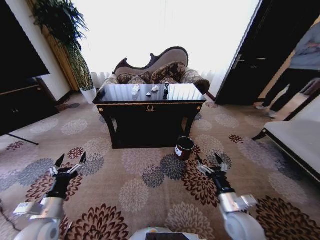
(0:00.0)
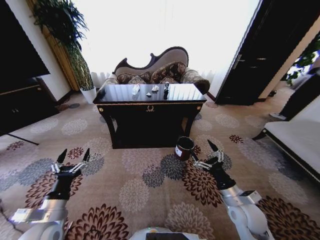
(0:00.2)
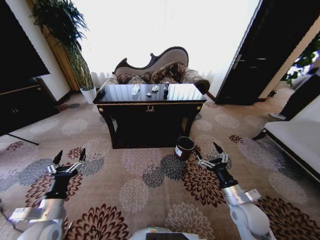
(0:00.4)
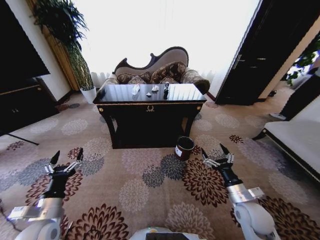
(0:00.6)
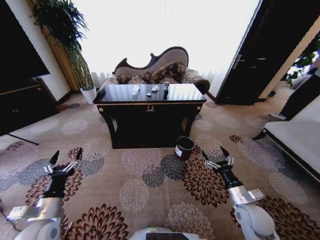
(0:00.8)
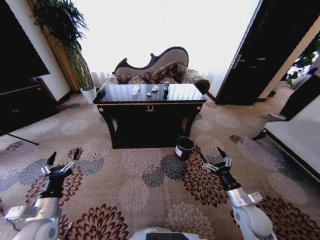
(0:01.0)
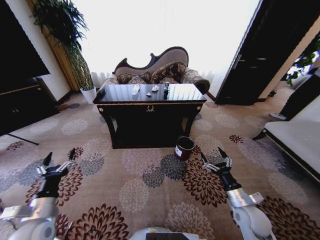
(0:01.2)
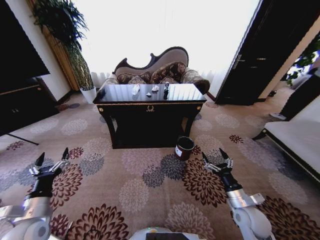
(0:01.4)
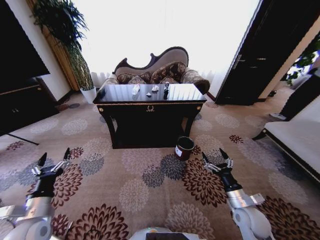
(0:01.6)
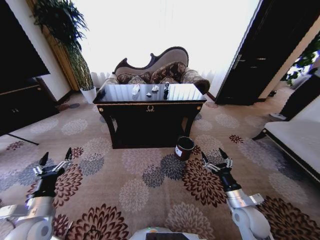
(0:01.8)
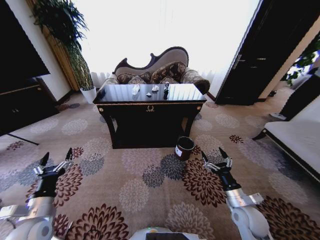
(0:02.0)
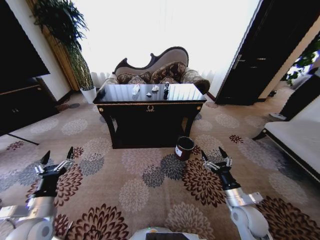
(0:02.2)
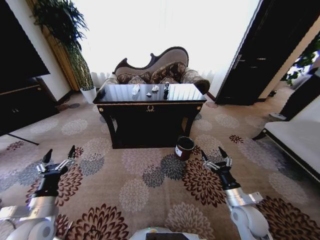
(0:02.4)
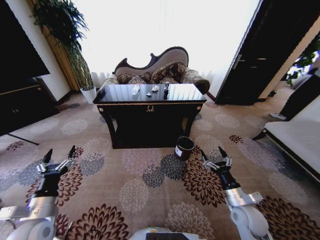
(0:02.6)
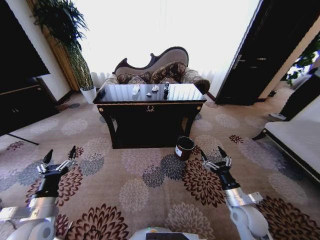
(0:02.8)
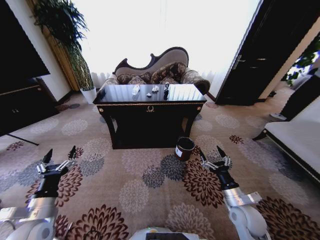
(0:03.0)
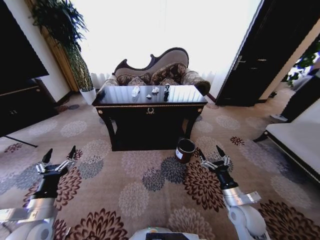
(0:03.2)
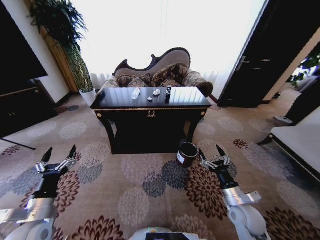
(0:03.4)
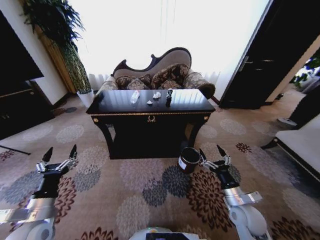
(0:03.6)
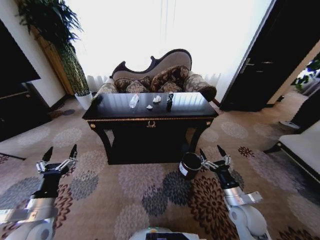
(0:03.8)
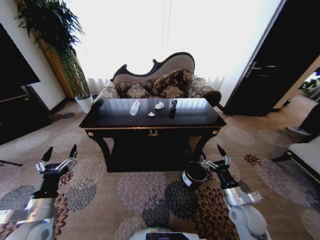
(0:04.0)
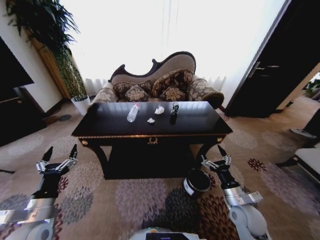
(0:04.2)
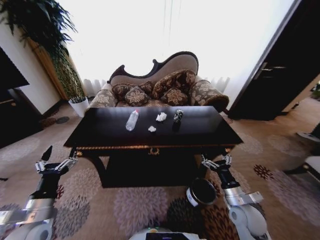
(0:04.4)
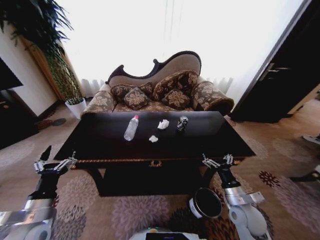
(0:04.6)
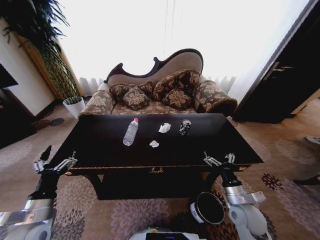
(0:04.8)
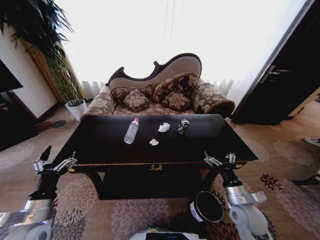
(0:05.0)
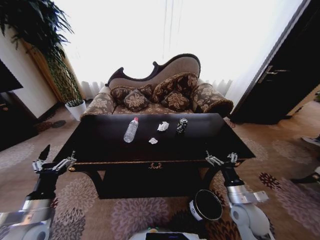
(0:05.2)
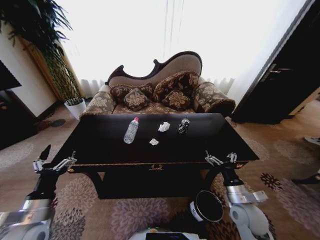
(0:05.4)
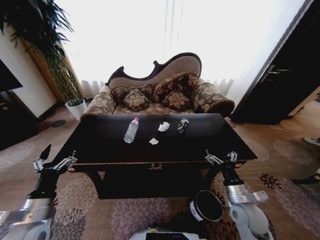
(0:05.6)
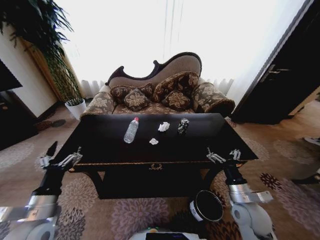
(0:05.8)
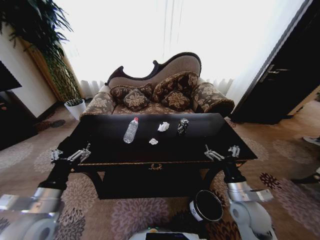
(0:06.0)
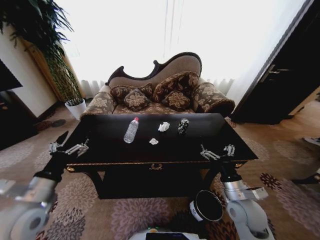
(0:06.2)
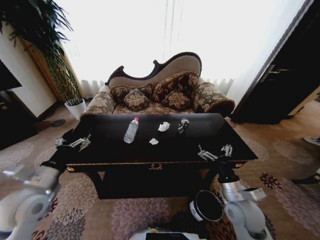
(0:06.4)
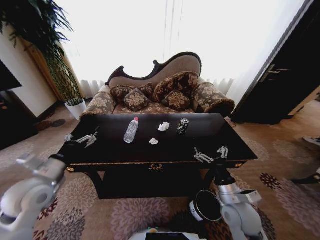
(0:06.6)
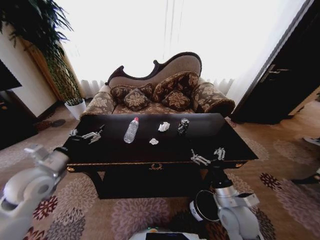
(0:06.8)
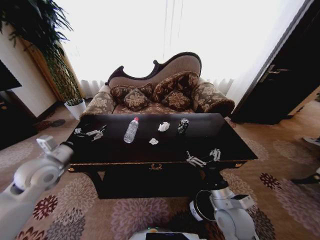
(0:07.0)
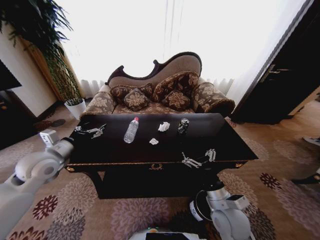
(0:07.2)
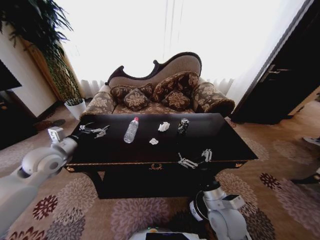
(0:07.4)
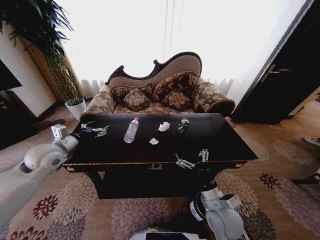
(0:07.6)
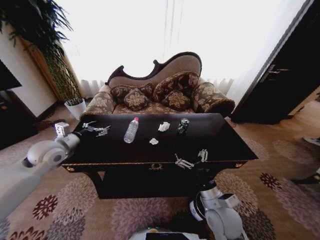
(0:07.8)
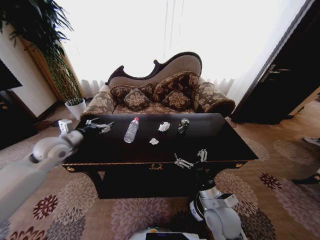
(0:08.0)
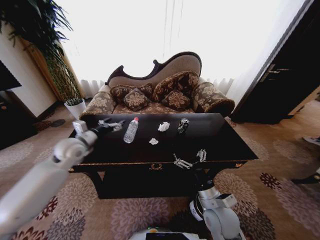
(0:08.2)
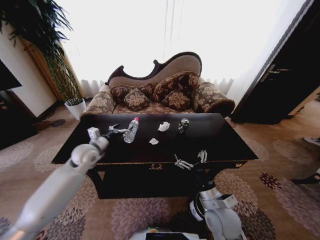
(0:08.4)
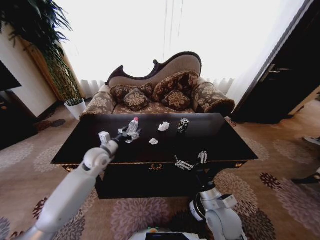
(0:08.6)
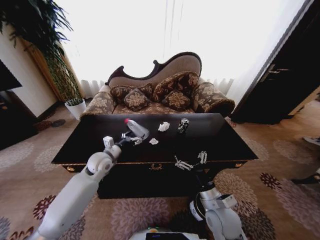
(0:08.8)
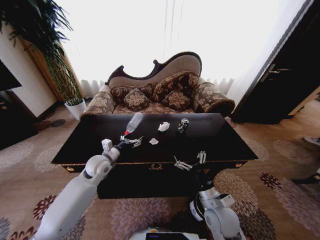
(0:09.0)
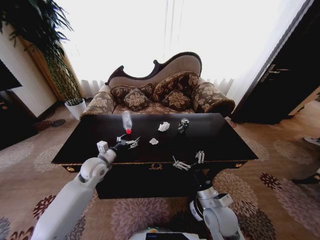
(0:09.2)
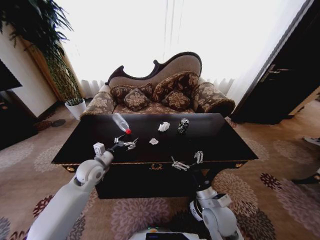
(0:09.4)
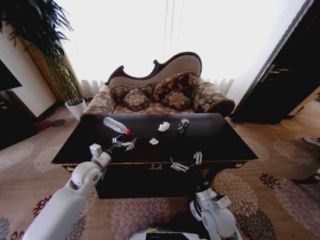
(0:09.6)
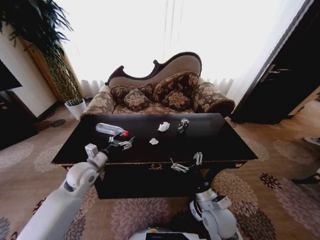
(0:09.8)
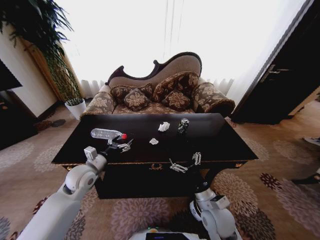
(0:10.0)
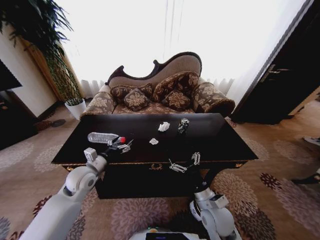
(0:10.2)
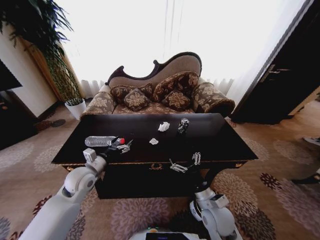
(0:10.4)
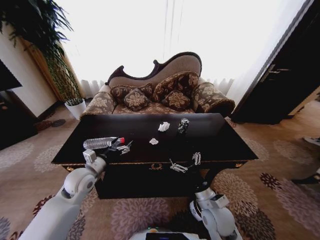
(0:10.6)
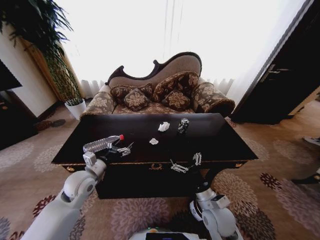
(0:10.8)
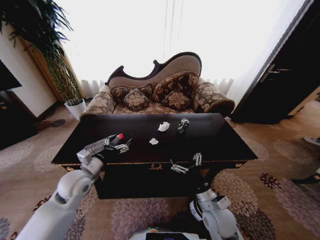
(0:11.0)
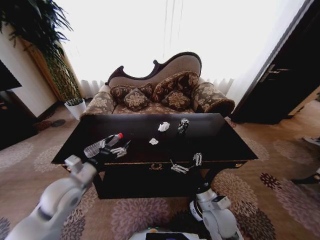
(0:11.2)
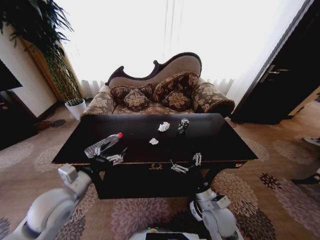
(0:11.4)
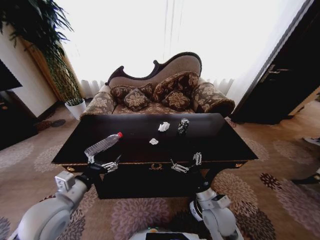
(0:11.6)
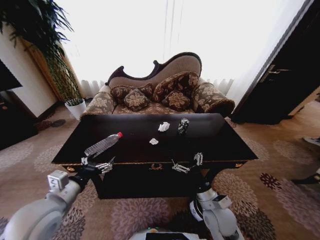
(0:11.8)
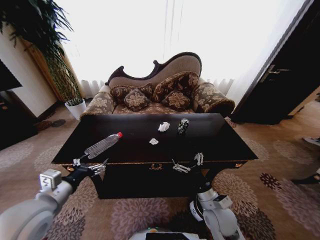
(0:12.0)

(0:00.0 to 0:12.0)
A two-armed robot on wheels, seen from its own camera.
Task of the whole recording: Move to the front of the table and place the trash on the table into the trash bin.
0:01.6 - 0:03.0: The grippers make only small movements.
0:04.4 - 0:06.0: The two grippers go approximately 5 cm upward.
0:06.0 - 0:07.6: The left gripper is displaced forward by roughly 20 cm. Meanwhile the right gripper moves to the left, roughly 10 cm.
0:07.6 - 0:09.0: The left gripper shifts some 15 cm to the right and downward.
0:09.0 - 0:10.4: The left gripper moves backward, approximately 5 cm.
0:10.4 - 0:12.0: The left gripper moves backward and upward, about 15 cm.

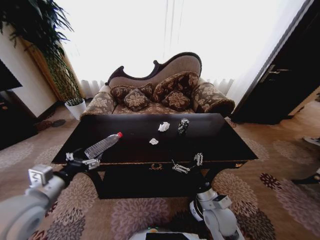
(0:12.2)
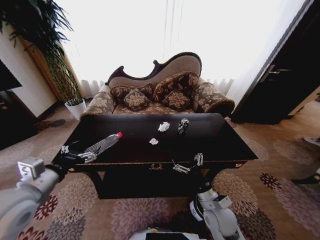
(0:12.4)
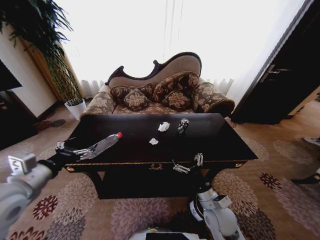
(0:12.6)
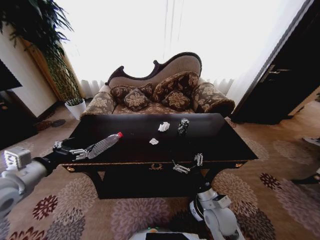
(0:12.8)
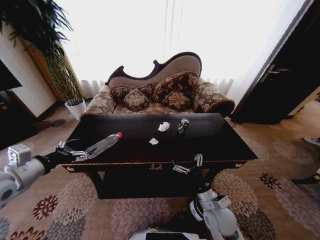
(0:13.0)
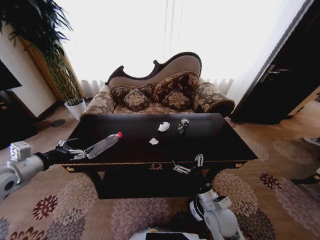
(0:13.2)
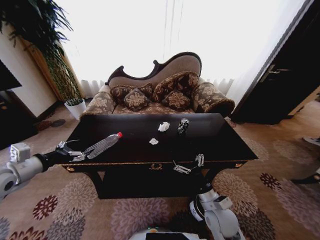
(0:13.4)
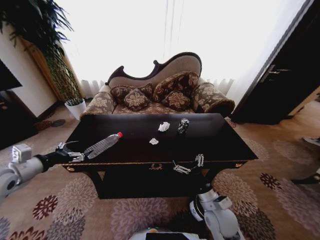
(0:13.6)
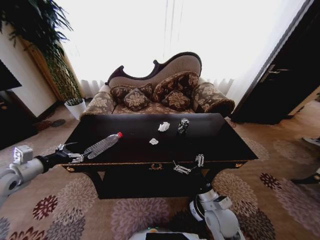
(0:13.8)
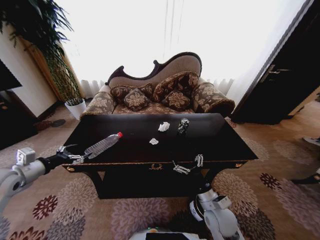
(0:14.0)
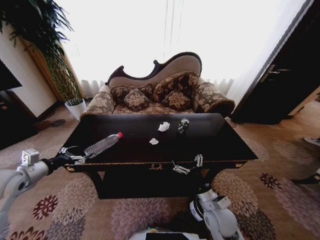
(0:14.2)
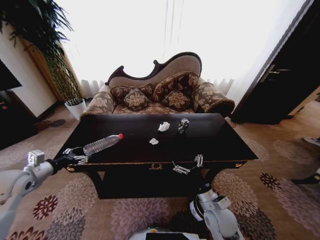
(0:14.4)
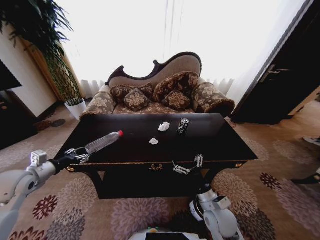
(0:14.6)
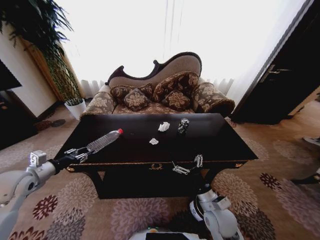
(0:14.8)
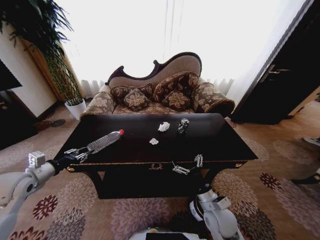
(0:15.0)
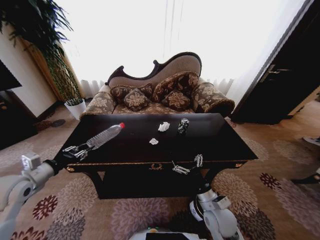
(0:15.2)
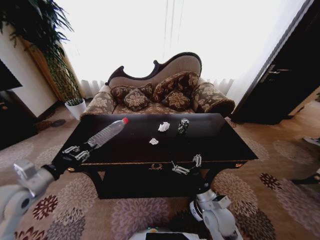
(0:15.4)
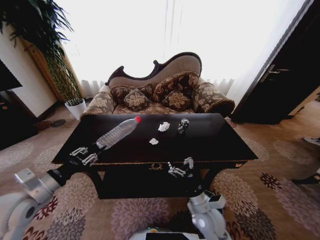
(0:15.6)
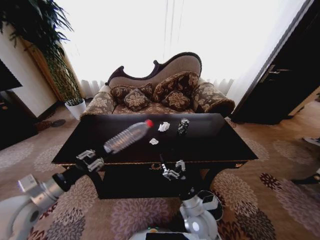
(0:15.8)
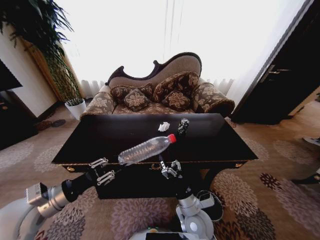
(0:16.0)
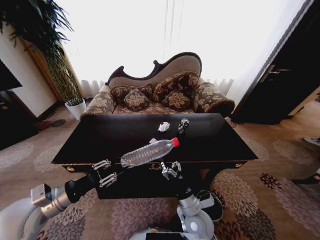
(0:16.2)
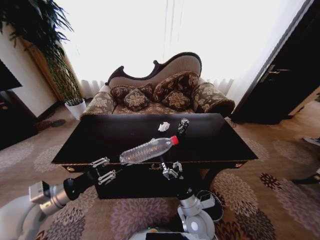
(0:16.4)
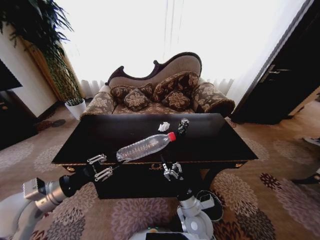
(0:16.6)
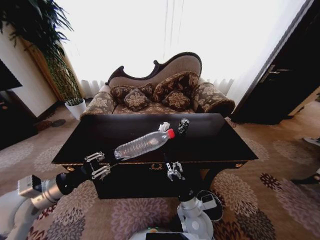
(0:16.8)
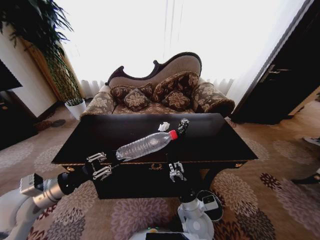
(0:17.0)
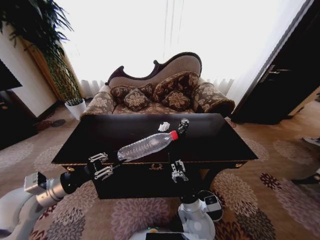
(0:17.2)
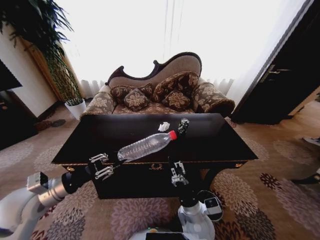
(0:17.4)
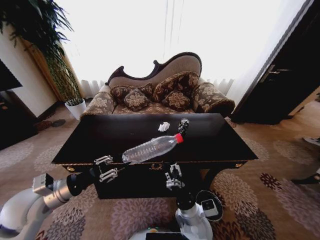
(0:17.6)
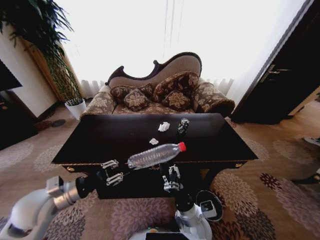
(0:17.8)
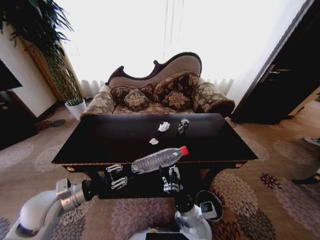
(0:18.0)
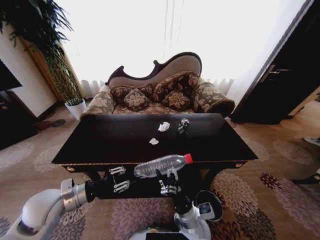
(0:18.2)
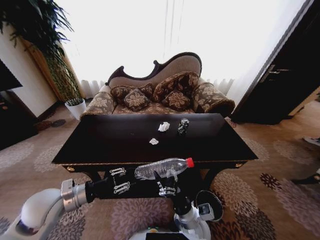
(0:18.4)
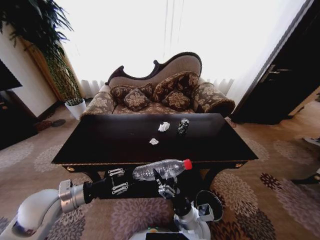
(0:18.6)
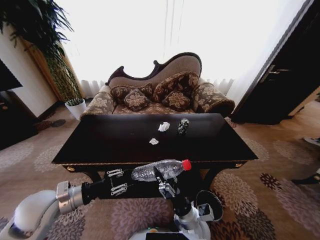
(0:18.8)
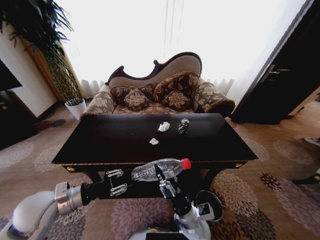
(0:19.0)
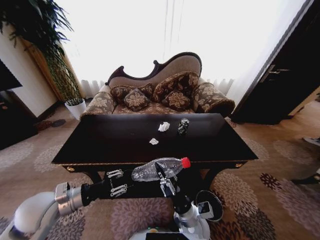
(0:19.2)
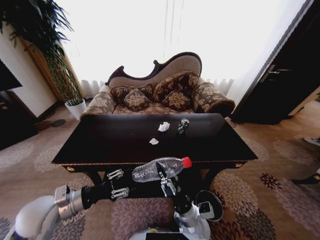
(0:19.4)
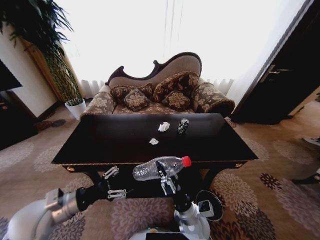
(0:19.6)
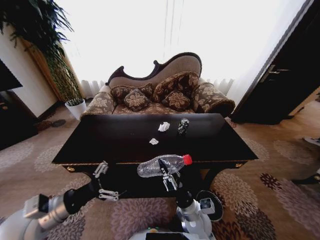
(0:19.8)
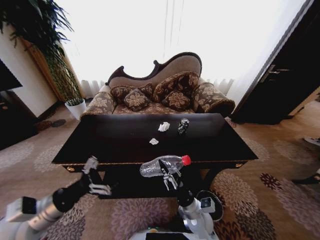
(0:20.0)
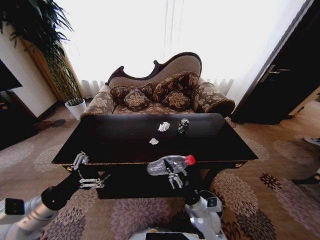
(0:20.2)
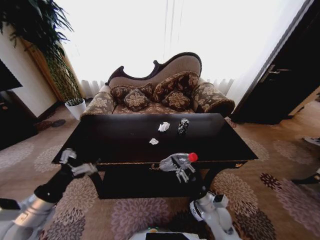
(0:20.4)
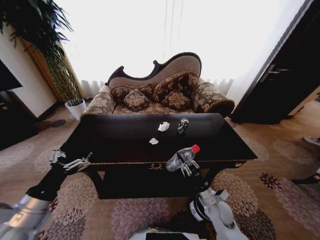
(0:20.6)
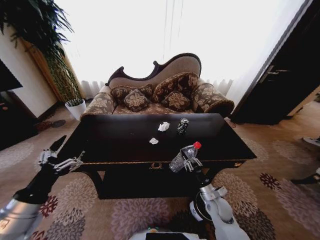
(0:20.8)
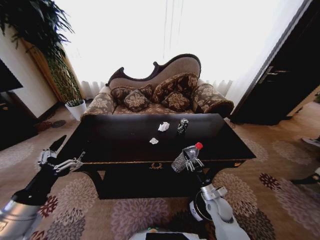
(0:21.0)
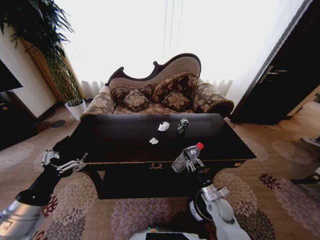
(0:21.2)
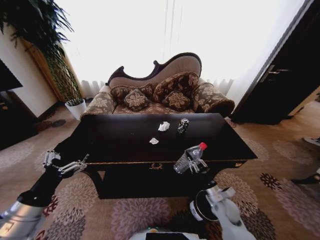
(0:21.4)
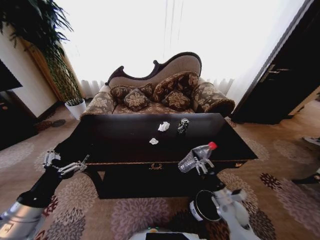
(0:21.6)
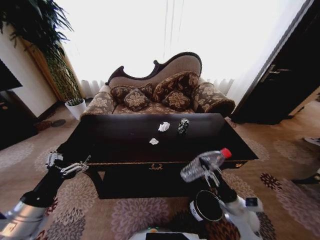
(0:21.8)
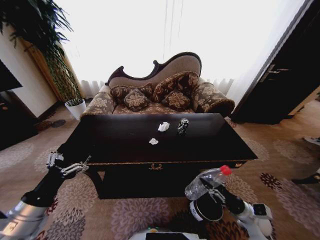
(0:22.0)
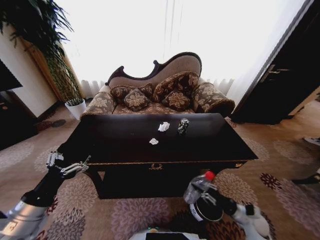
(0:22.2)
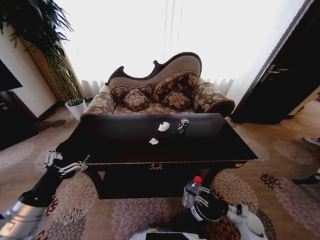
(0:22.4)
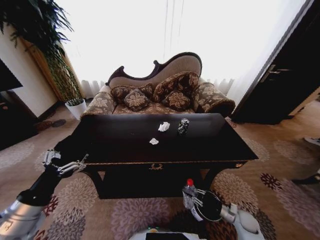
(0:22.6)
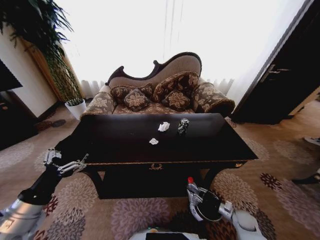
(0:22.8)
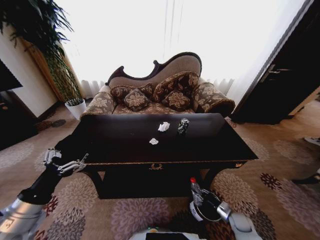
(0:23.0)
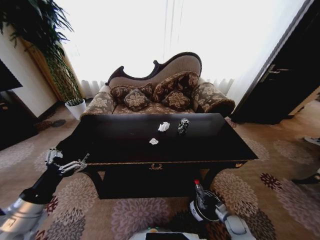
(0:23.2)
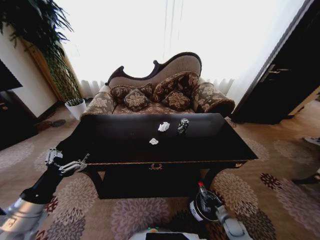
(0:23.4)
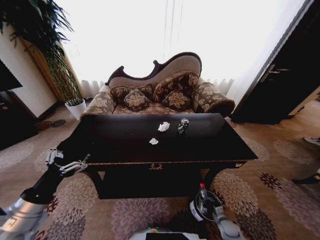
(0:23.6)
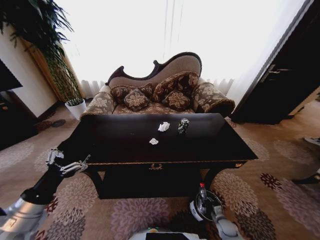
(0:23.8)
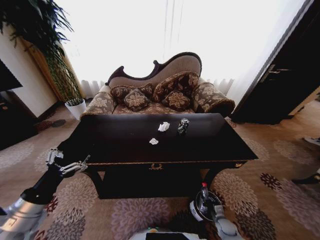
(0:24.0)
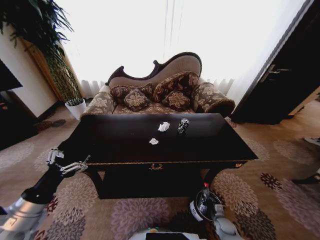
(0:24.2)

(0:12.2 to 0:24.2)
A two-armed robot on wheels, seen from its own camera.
Task of the whole recording: Move to the front of the table and place the trash on the table into the trash bin.
0:12.2 - 0:13.8: The left gripper is displaced to the left and forward by about 15 cm.
0:13.8 - 0:15.2: The left gripper closes.
0:15.2 - 0:16.6: The right gripper travels to the left by about 5 cm, while the left gripper goes some 10 cm to the right.
0:16.6 - 0:18.2: The left gripper ends up roughly 5 cm from where it was.
0:18.2 - 0:19.8: The right gripper closes its fingers; the left gripper opens its fingers.
0:19.8 - 0:21.2: The left gripper shifts approximately 5 cm backward. The right gripper is displaced to the right and forward by about 15 cm.
0:21.2 - 0:22.6: The right gripper is displaced to the right and downward by approximately 15 cm.
0:22.6 - 0:24.2: The right gripper goes approximately 10 cm downward.
